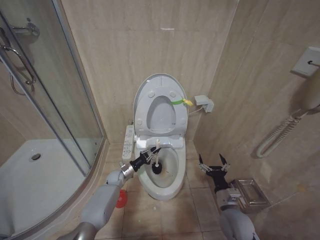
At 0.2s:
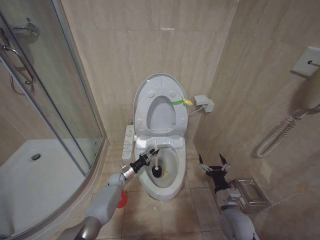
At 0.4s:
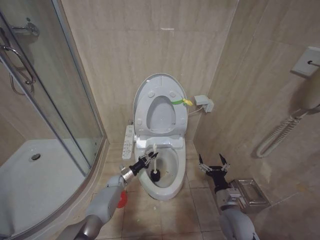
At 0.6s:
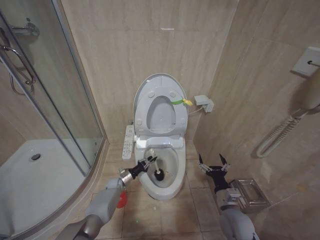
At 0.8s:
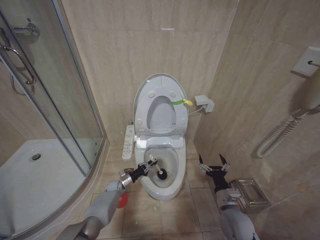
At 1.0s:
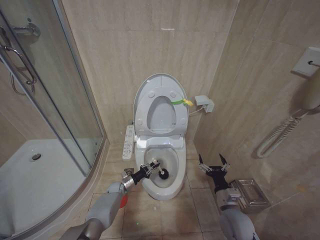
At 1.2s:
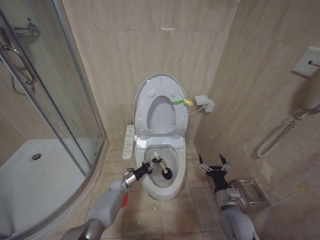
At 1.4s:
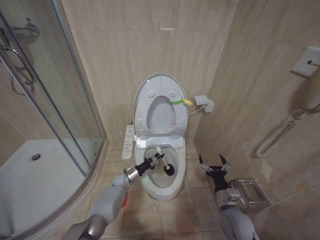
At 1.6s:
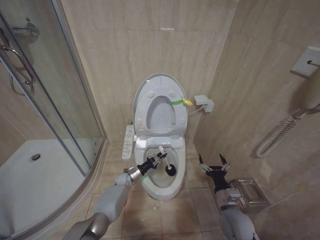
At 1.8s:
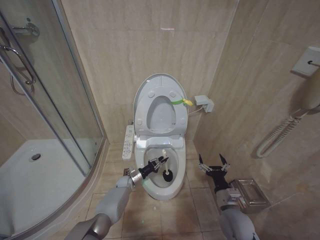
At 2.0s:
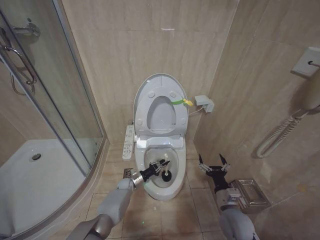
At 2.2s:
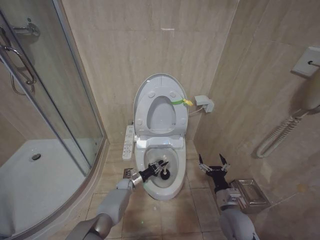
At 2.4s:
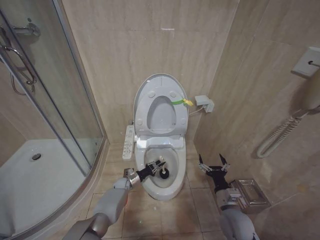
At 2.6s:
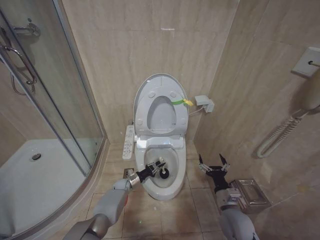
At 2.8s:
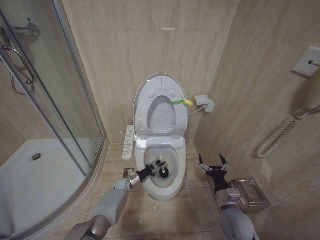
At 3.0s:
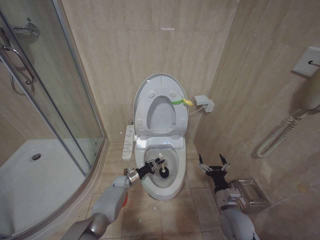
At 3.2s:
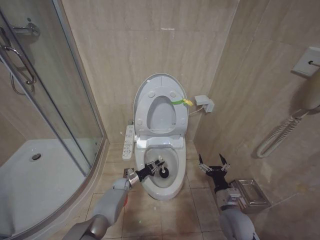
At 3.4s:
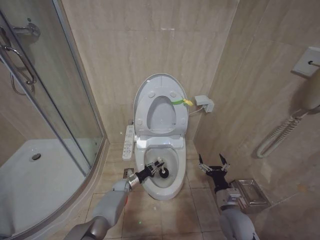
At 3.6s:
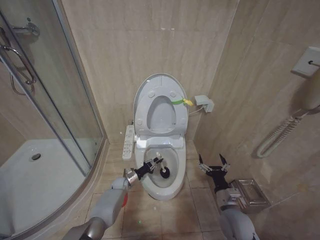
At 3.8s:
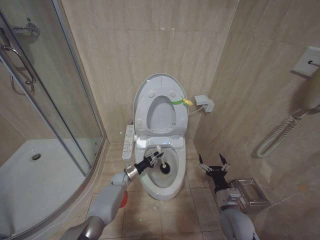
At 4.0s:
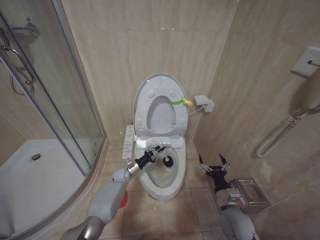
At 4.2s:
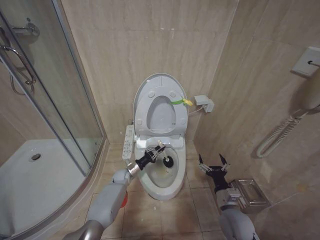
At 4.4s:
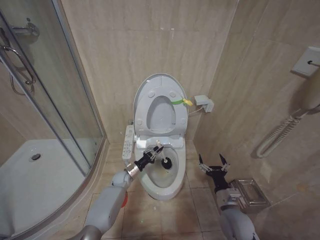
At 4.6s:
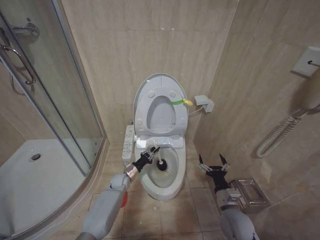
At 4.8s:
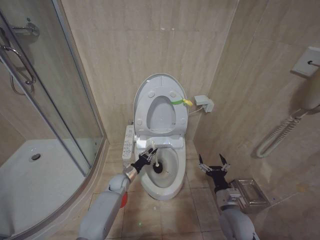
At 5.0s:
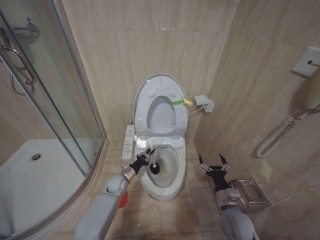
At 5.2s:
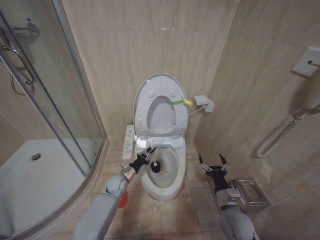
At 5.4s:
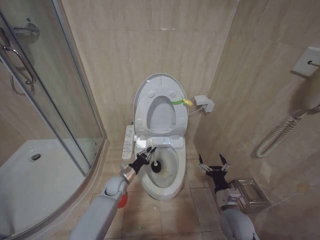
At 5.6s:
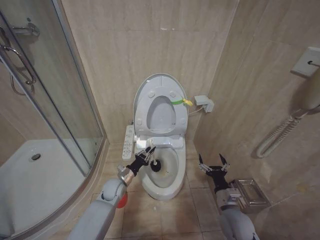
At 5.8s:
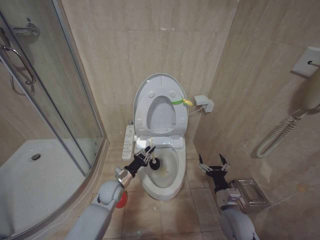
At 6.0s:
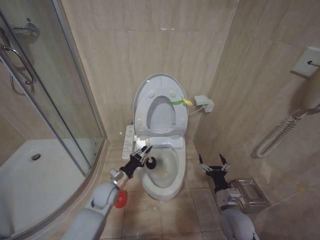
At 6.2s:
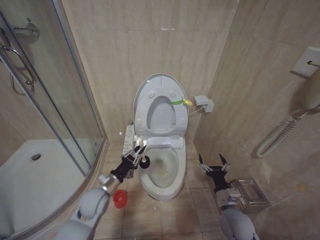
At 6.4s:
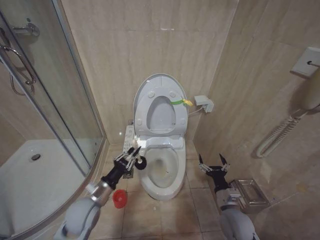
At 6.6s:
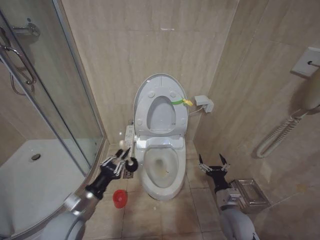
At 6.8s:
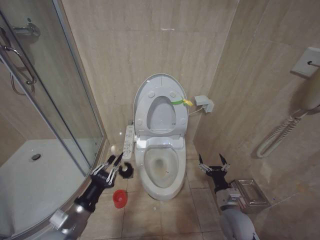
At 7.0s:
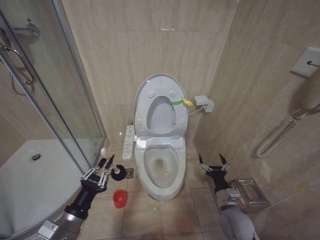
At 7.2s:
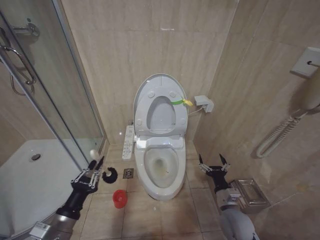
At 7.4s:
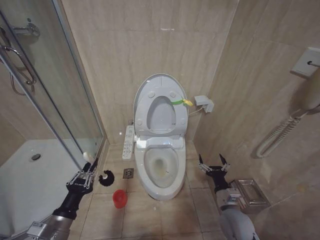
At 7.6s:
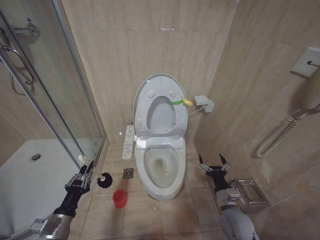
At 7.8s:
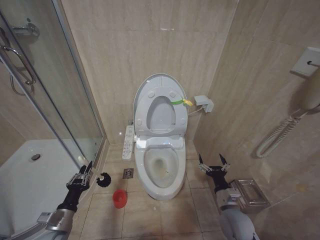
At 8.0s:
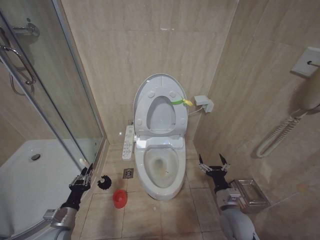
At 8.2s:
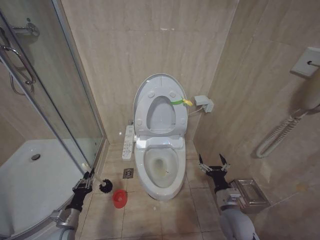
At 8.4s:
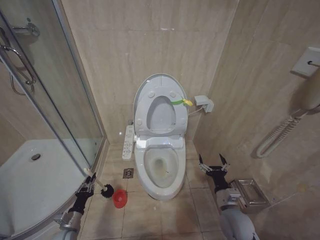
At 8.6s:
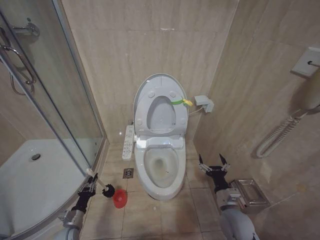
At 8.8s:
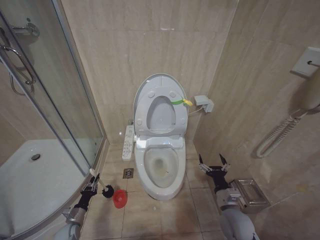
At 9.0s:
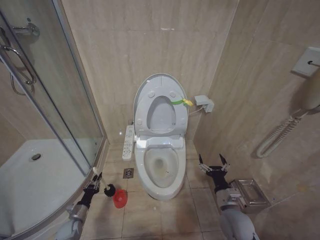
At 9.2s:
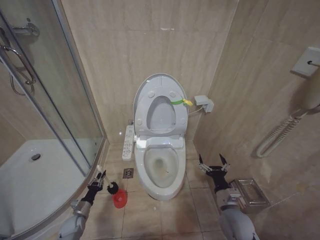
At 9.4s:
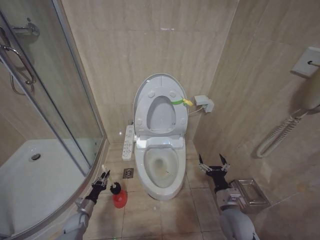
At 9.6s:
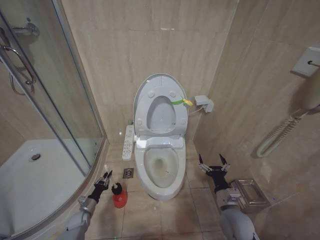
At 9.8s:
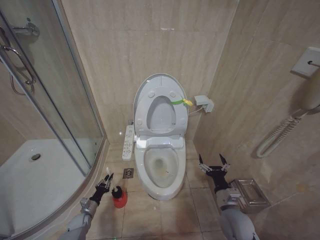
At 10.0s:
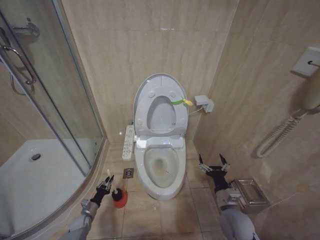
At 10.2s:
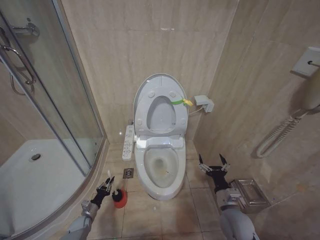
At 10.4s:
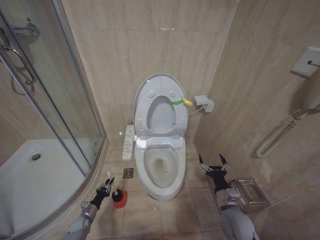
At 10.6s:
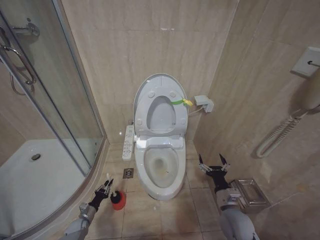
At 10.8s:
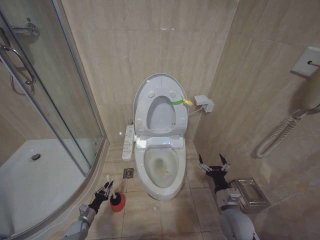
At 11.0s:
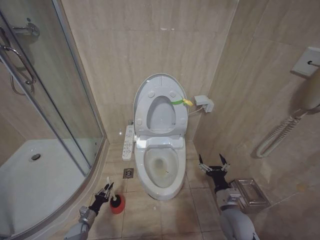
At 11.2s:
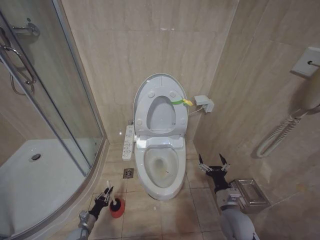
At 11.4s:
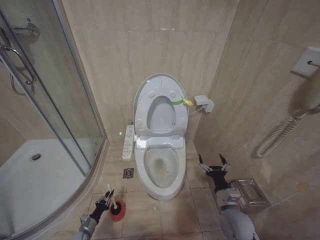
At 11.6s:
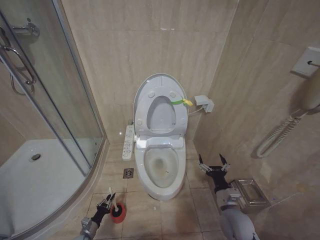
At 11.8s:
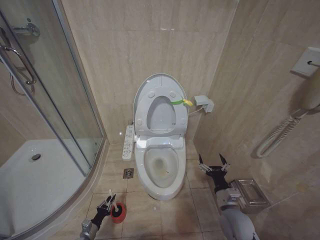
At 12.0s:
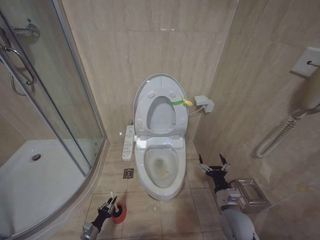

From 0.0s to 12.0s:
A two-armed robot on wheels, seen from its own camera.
Task of the whole recording: Open the toilet lid, clean the toilet bowl with a toilet brush, close the toilet lid, and flush.
From 1.6s to 3.0s: The grippers make only small movements.
From 3.0s to 4.4s: The left gripper heads upward, covering about 5 cm.
From 4.4s to 6.0s: The left gripper heads backward and upward, covering about 15 cm.
From 6.0s to 7.6s: The left gripper travels backward and to the left by about 25 cm.
From 7.6s to 9.0s: The left gripper heads downward and forward, covering some 25 cm.
From 9.0s to 10.4s: The left gripper ends up some 5 cm from where it was.
From 10.4s to 12.0s: The left gripper travels backward and downward by approximately 10 cm.

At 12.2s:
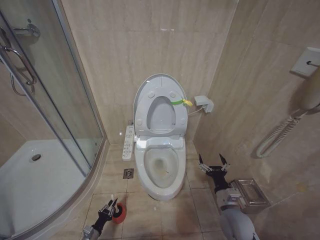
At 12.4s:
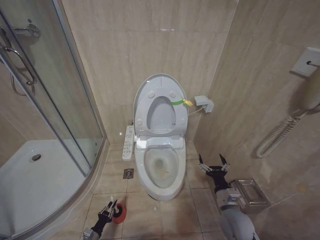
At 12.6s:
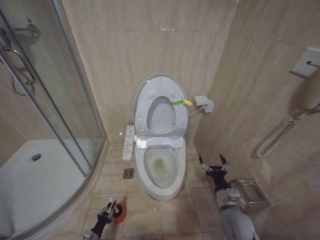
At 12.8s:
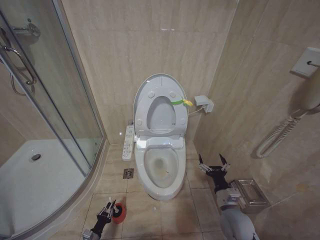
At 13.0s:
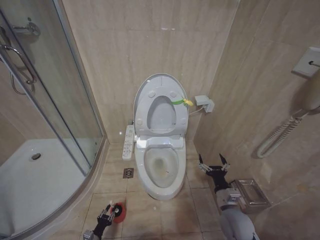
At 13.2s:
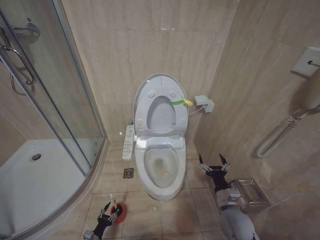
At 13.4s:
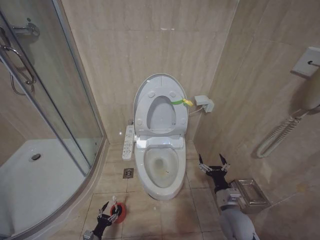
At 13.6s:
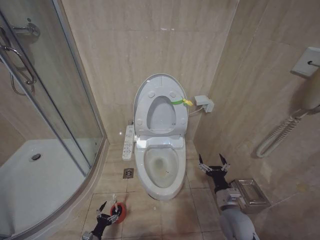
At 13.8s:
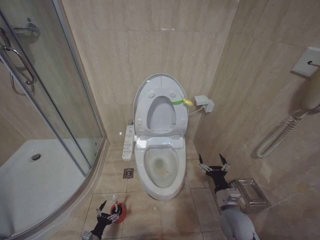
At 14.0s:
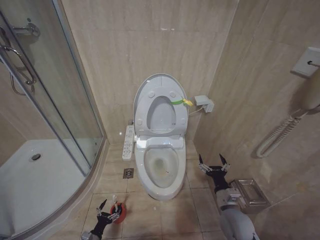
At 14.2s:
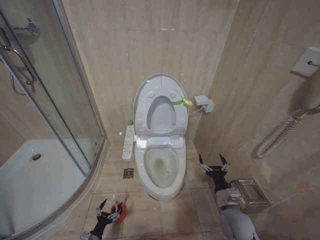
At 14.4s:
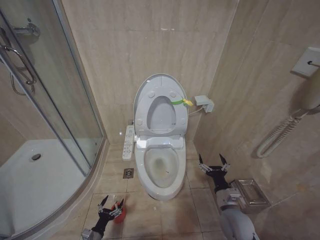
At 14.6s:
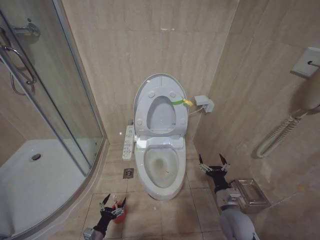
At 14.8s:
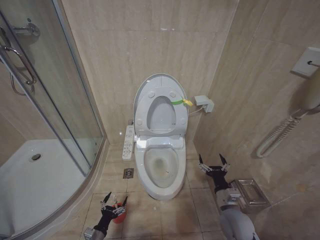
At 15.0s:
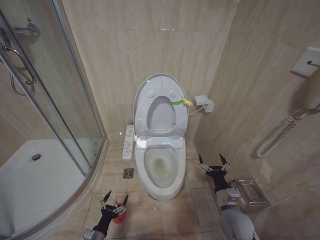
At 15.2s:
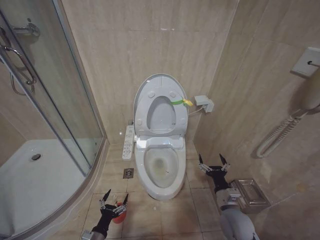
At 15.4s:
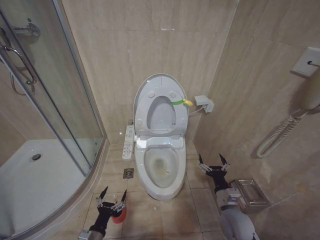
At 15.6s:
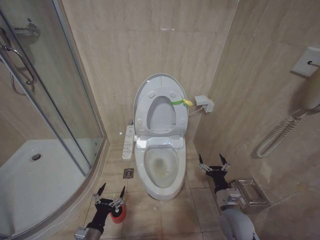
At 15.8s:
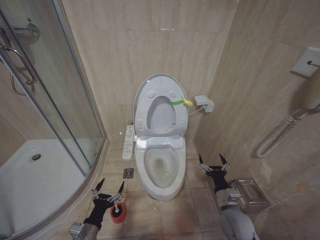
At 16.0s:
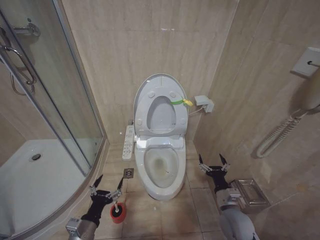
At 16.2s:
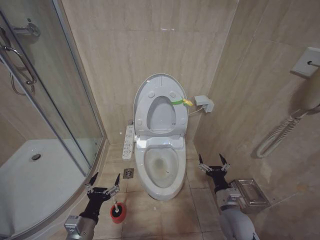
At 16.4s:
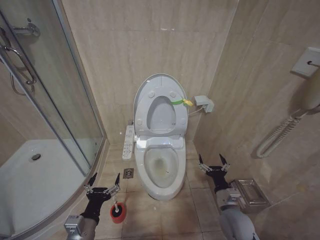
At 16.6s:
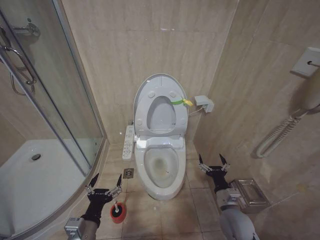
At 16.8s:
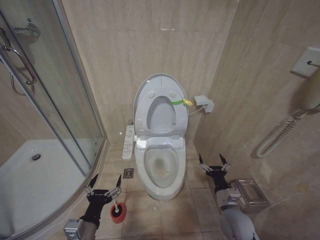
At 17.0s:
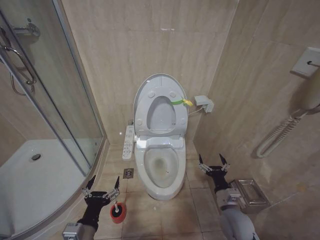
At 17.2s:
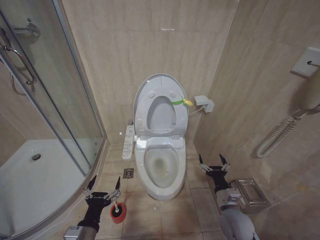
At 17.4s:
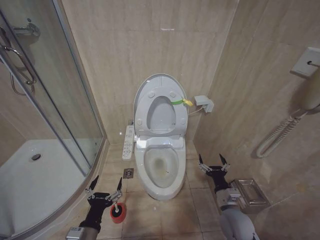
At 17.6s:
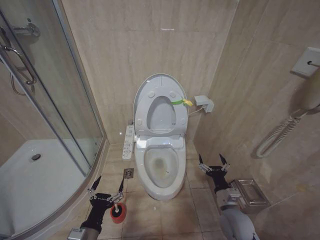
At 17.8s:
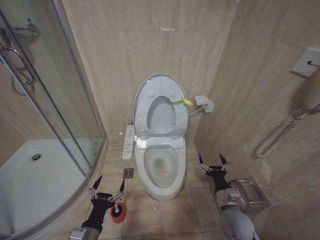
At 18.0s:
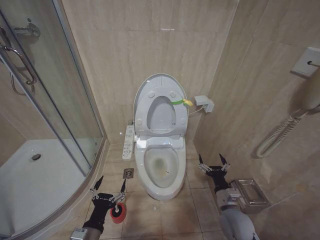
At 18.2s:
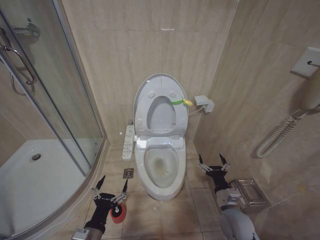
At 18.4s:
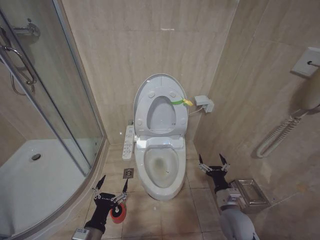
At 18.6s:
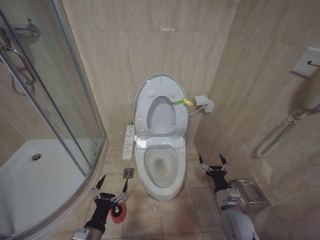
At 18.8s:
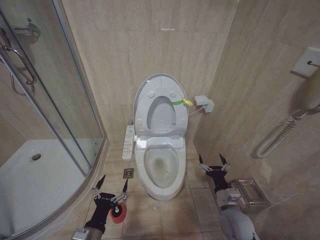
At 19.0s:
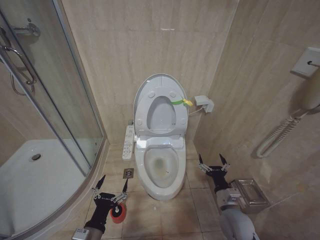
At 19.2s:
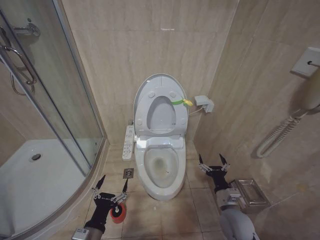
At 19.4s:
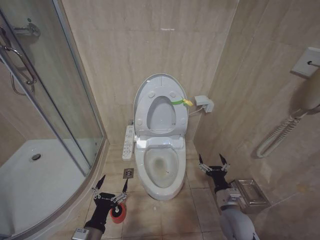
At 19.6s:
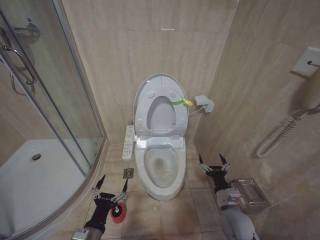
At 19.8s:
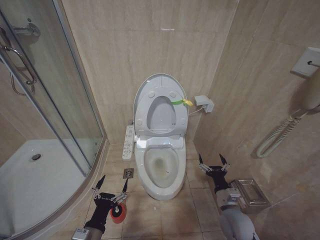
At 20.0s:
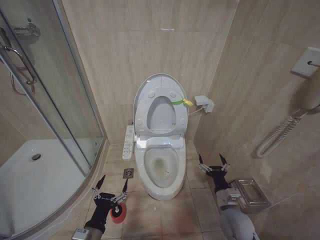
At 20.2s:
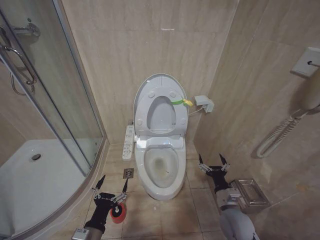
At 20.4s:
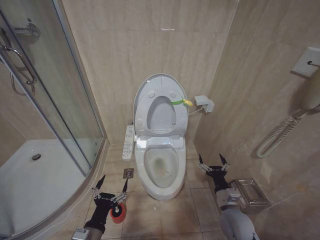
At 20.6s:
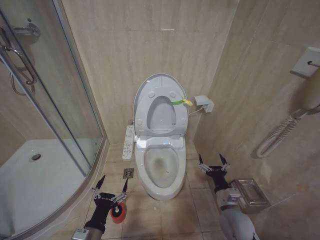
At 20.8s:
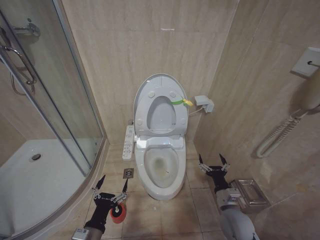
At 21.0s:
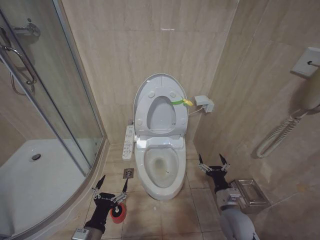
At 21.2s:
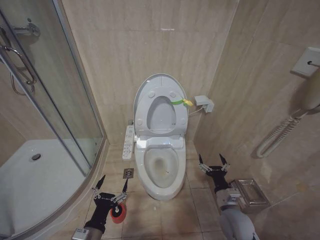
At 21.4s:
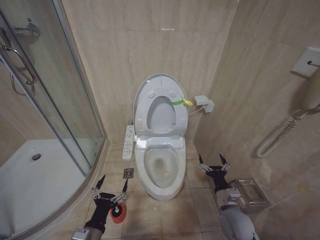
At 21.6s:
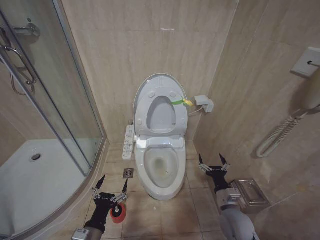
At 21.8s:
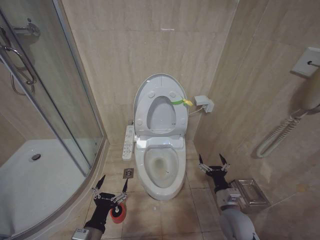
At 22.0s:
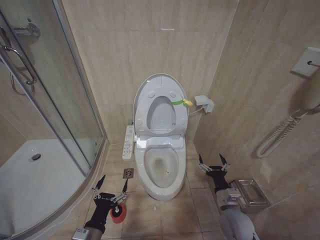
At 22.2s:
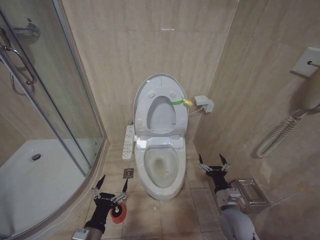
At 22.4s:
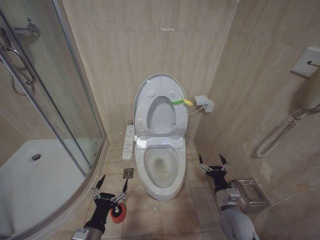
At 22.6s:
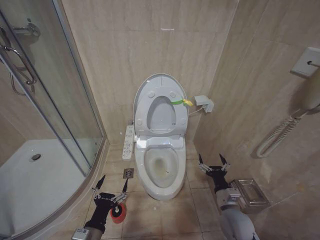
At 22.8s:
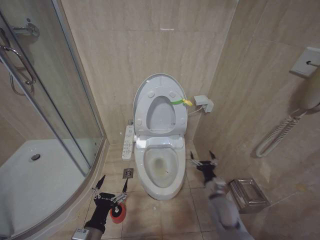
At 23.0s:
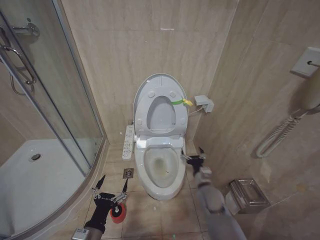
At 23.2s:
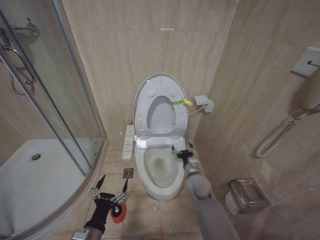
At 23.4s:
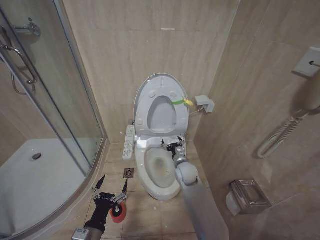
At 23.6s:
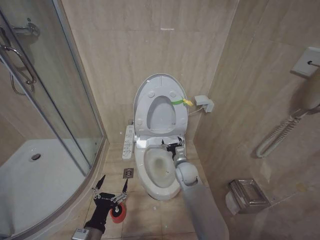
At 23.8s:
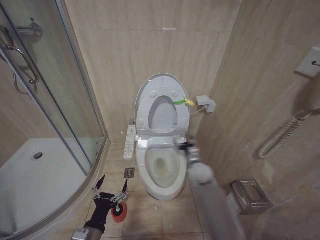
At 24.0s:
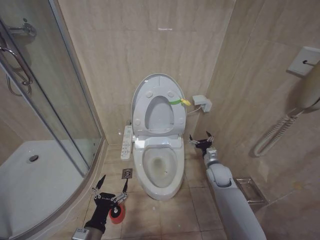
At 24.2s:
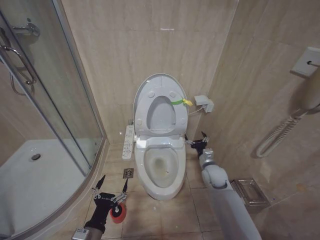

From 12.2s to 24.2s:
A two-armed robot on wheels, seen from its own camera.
Task of the whole recording: Open the toilet lid, clean the toilet bowl with a toilet brush, close the toilet lid, and flush.
From 12.2s to 13.8s: The left gripper opens its fingers.
From 13.8s to 15.2s: The left gripper is displaced upward and to the right by approximately 15 cm.
From 15.2s to 16.6s: The left gripper heads upward, covering approximately 20 cm.
From 16.6s to 18.2s: The grippers stay close to where they were, moving slightly.
From 18.2s to 22.6s: Both grippers stay put.
From 22.6s to 24.2s: The right gripper goes roughly 15 cm forward.
